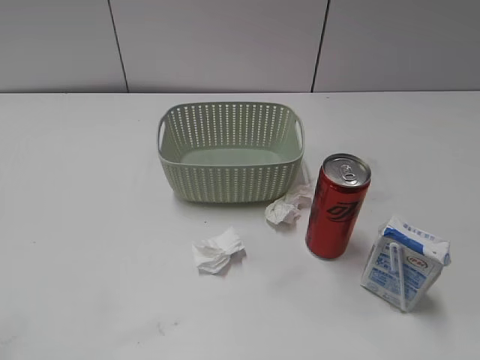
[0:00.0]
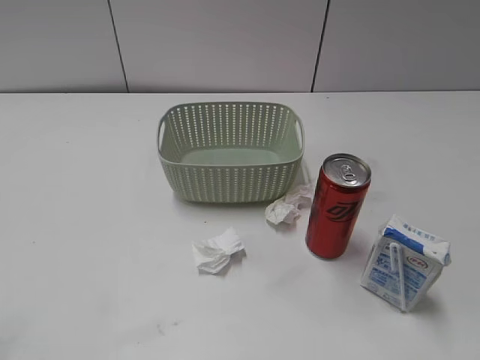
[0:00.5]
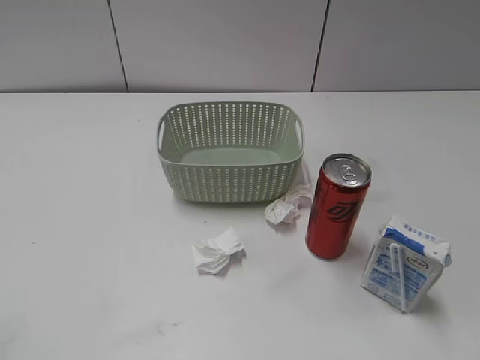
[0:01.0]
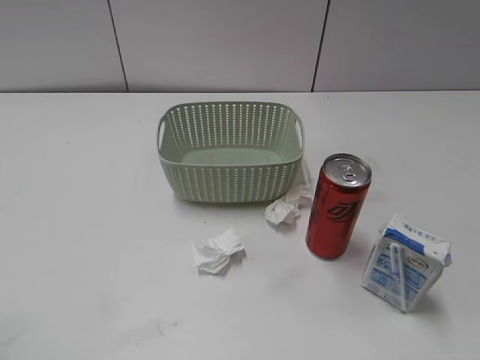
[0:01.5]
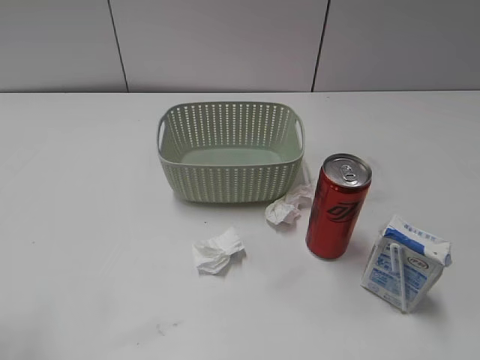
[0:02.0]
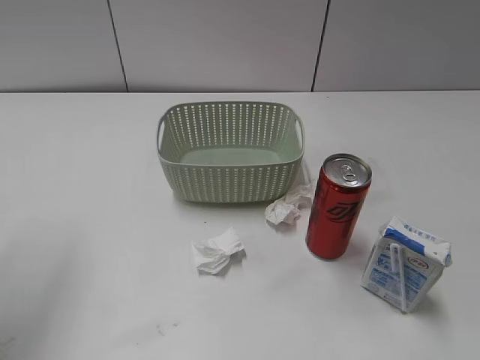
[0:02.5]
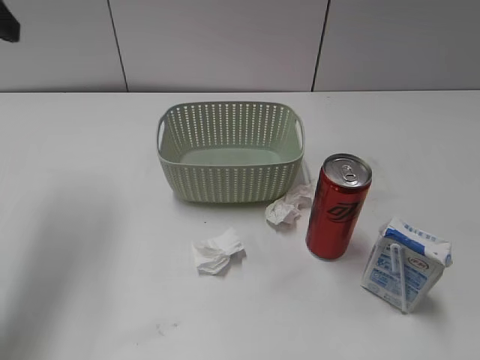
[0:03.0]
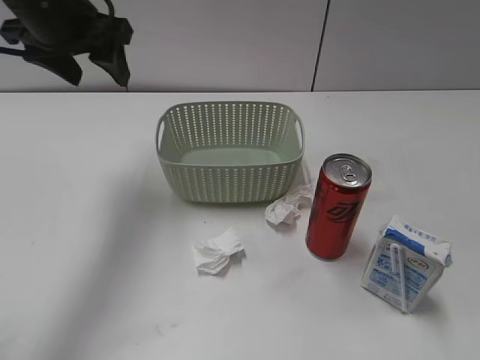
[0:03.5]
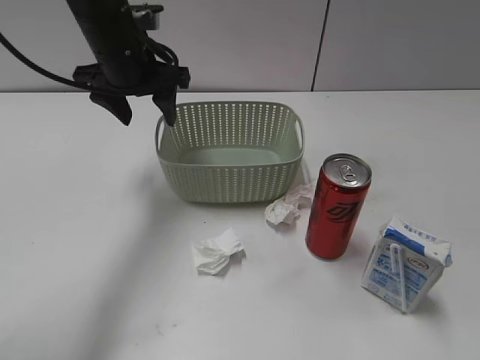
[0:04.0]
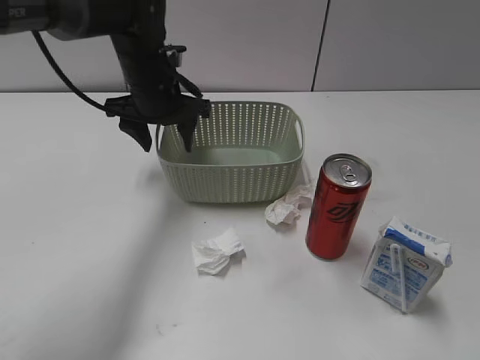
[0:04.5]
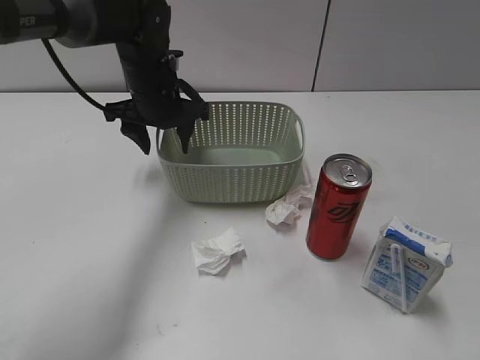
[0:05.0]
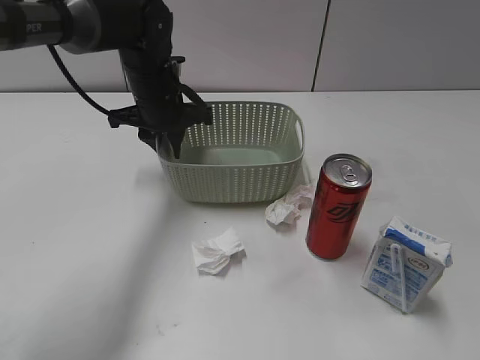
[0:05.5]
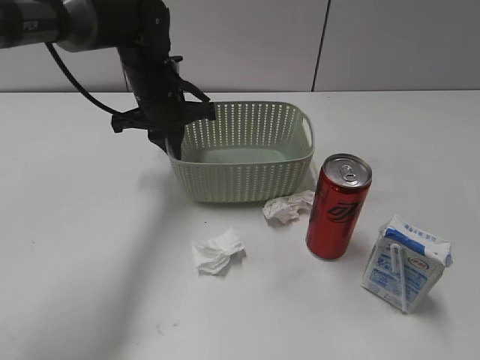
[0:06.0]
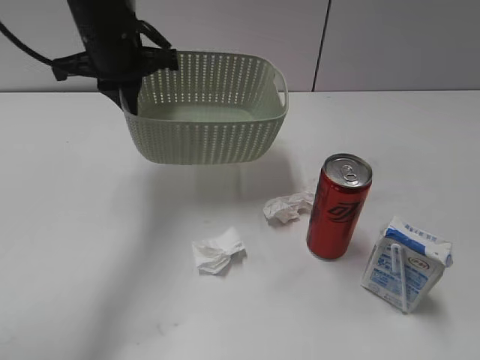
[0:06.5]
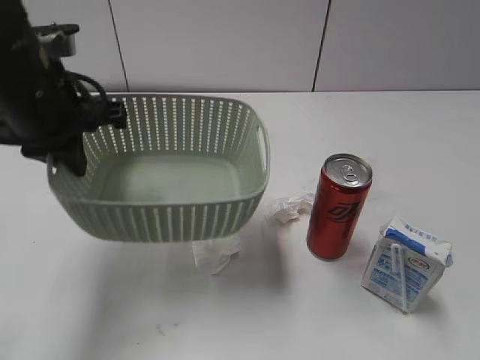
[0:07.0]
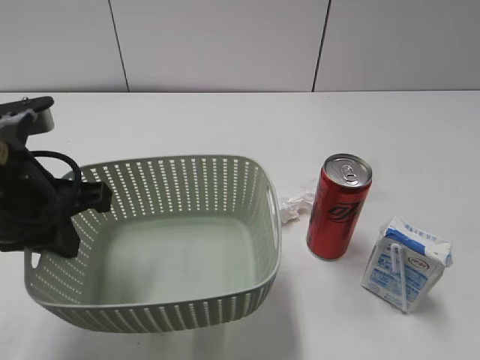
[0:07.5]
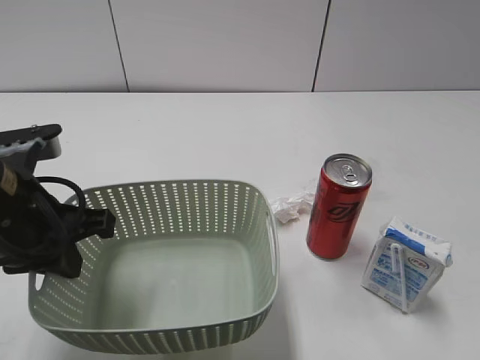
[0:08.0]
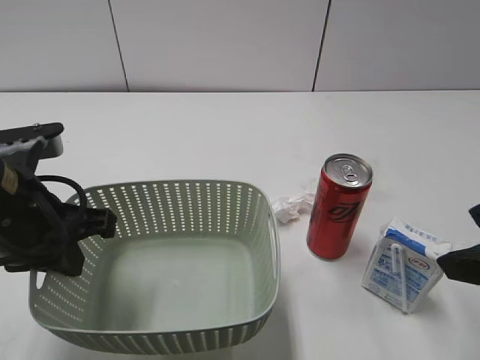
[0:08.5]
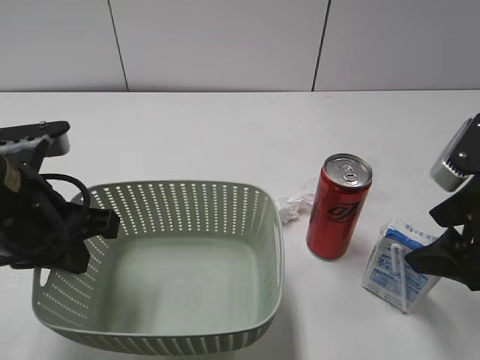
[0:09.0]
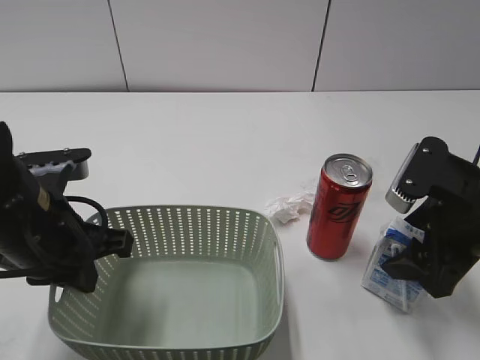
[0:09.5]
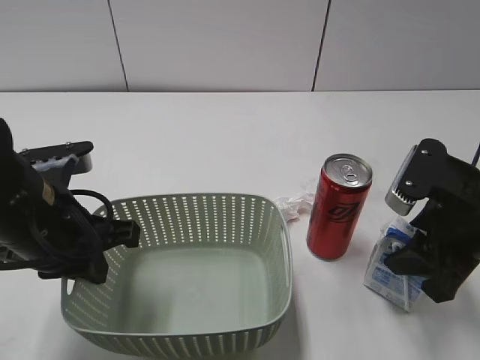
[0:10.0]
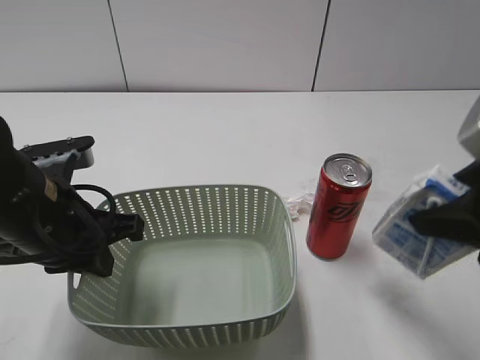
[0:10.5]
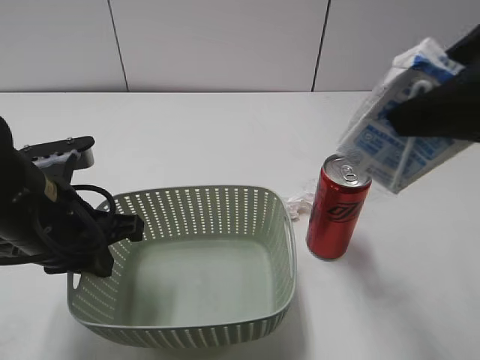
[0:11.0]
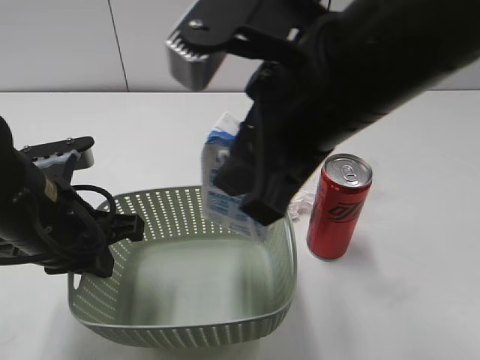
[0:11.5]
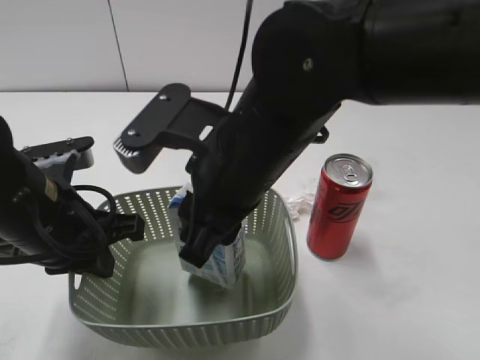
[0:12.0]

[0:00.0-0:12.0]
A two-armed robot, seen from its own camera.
Step, 0:03.0 to 0:05.5: Grasp the basket with left gripper.
Step, 0:06.0 to 0:08.0: Lift the basket with left gripper.
Step, 0:08.5 to 0:09.5: Grasp the milk with right gripper.
0:02.0 to 0:04.0: The left gripper shifts about 40 cm forward, to the right and downward.
0:04.0 to 0:06.0: The left gripper is displaced downward by about 5 cm, and closes its fingers.
0:06.0 to 0:08.0: The left gripper travels backward by roughly 25 cm. Meanwhile the right gripper is displaced forward by some 5 cm.
0:08.0 to 0:10.0: The right gripper goes roughly 20 cm forward and downward, and closes.
0:10.0 to 0:12.0: The right gripper shifts some 25 cm to the left.

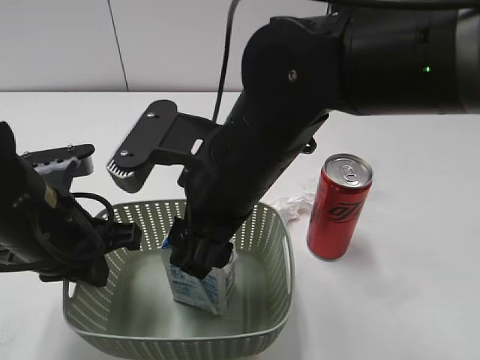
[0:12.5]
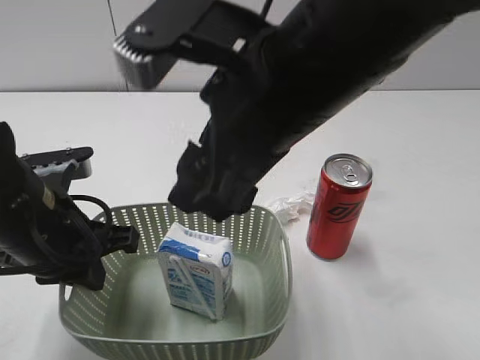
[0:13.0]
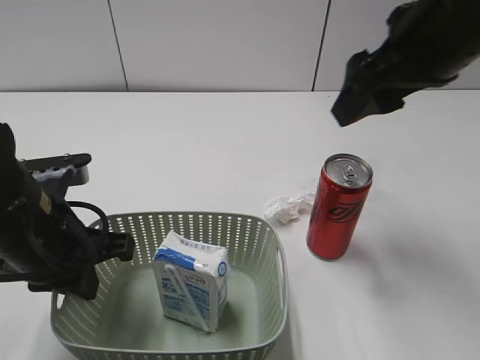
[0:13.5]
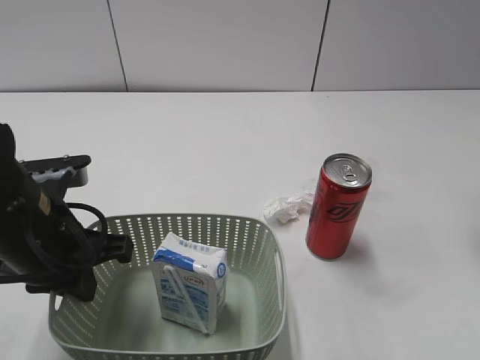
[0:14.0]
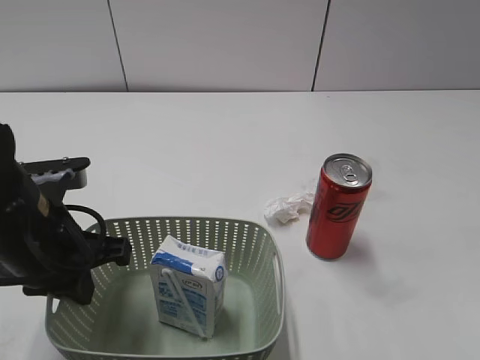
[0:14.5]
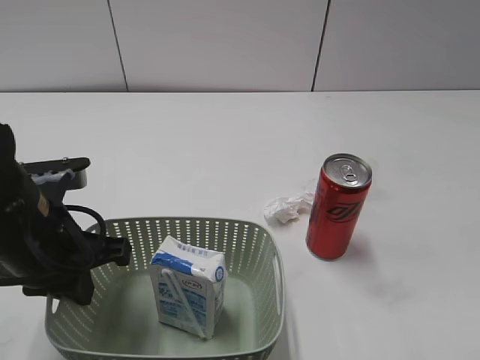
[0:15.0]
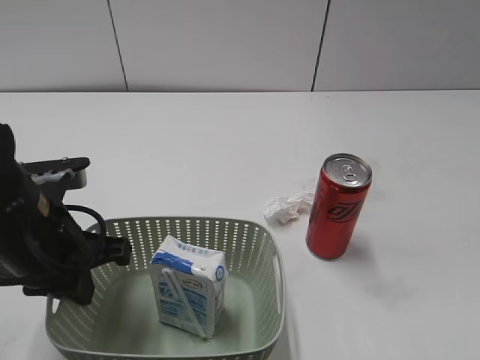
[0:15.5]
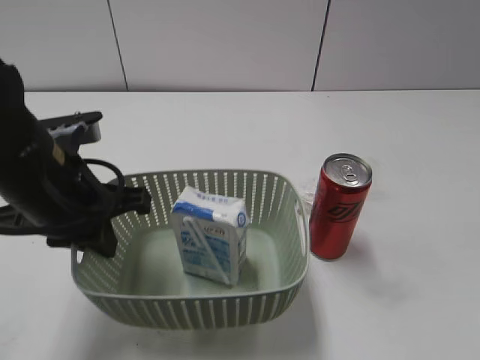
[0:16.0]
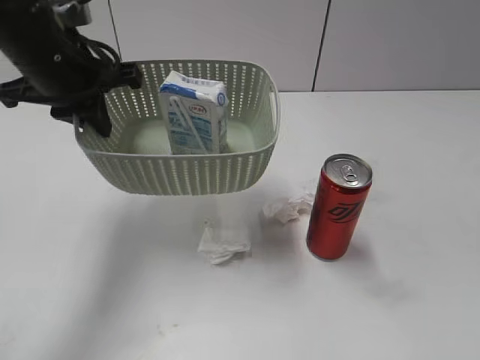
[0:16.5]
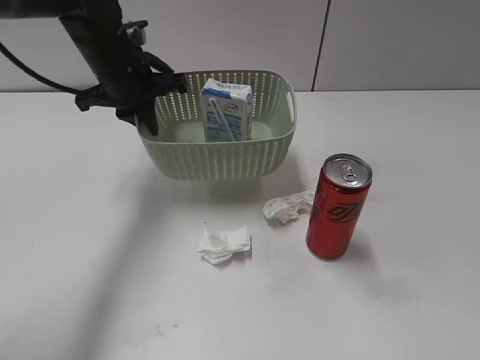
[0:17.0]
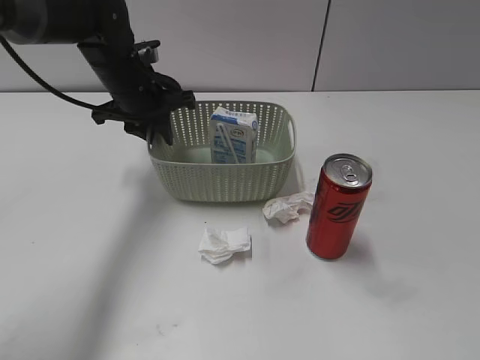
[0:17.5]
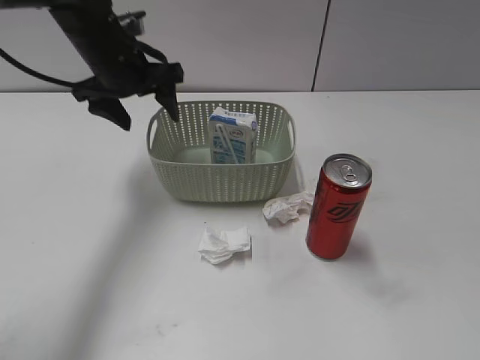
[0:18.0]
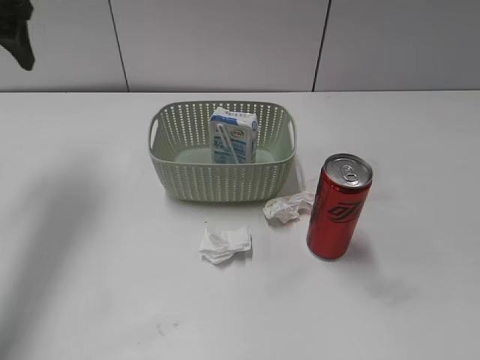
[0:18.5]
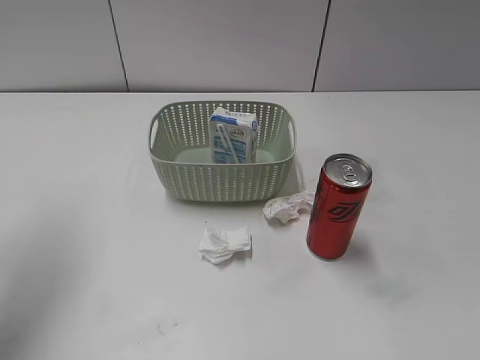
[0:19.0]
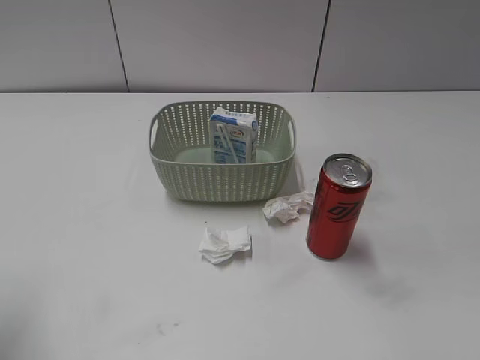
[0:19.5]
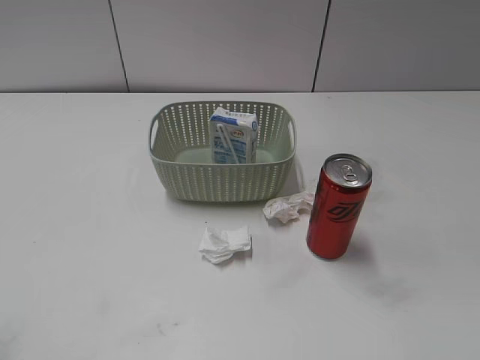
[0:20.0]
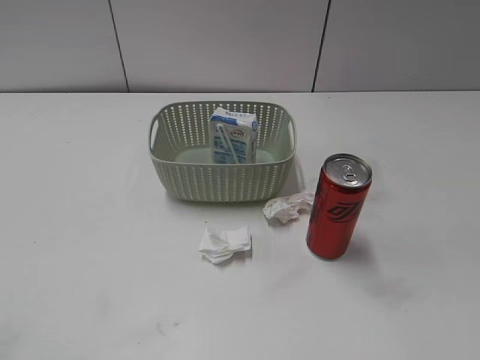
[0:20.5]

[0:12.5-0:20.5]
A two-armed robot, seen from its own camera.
Step, 0:13.0 to 0:18.0: Place the basket on the table with left gripper.
0:12.5 to 0:14.5: The right gripper moves to the right, approximately 30 cm.
0:14.5 to 0:16.5: The right gripper is displaced backward by roughly 15 cm. The left gripper moves forward and upward, approximately 15 cm.
0:16.5 to 0:18.5: The left gripper heads to the left and upward, covering roughly 15 cm, and opens up.
0:18.5 to 0:20.5: The left gripper moves backward, some 35 cm.

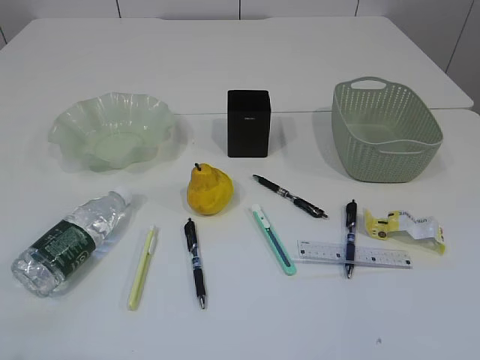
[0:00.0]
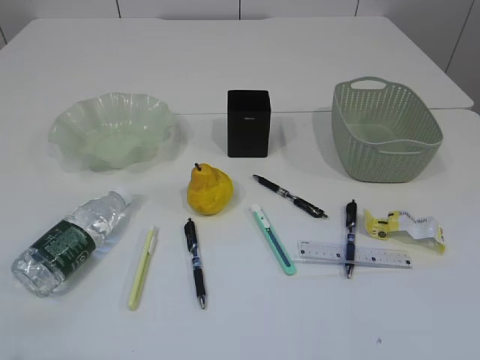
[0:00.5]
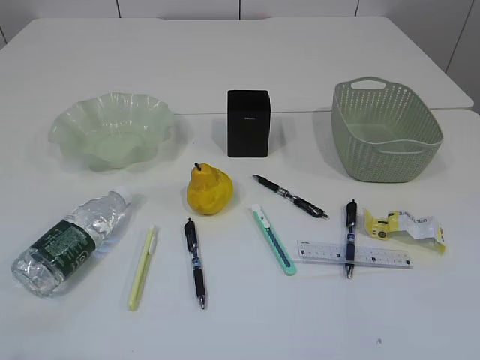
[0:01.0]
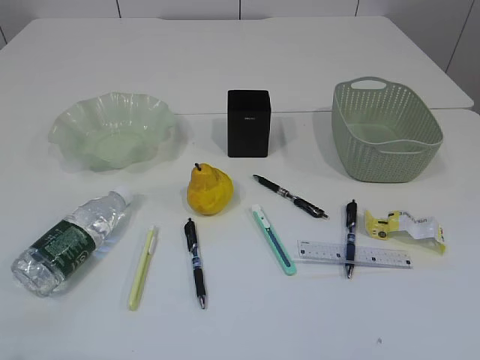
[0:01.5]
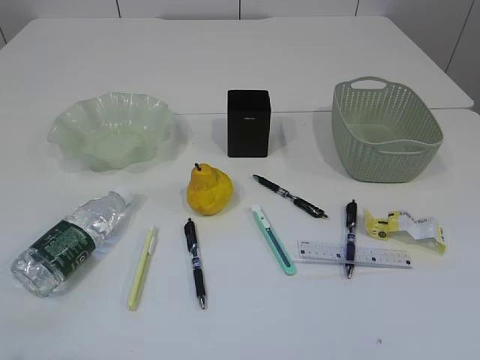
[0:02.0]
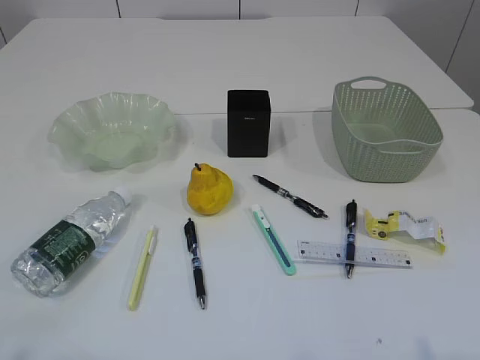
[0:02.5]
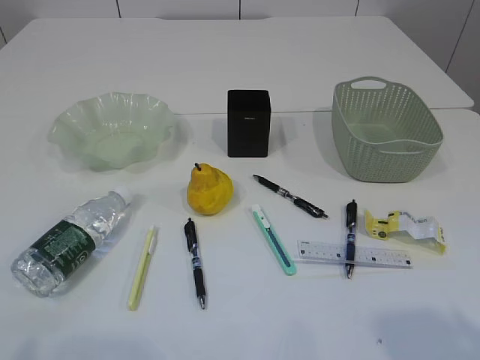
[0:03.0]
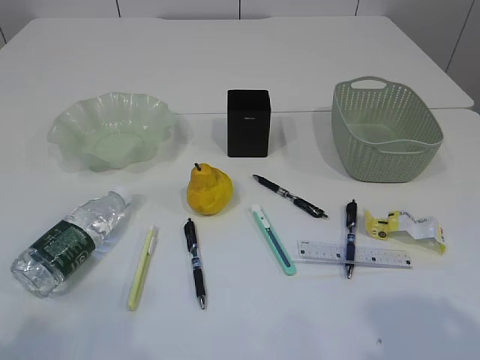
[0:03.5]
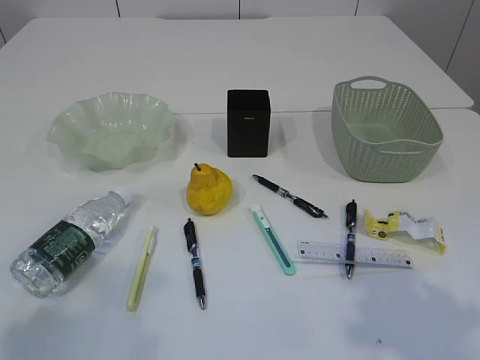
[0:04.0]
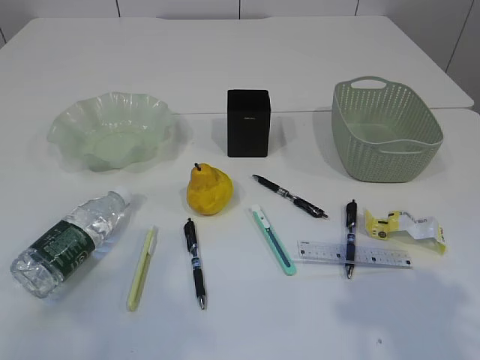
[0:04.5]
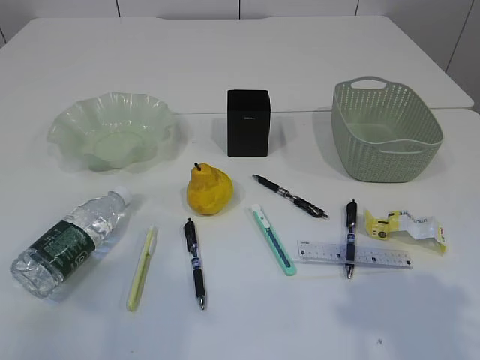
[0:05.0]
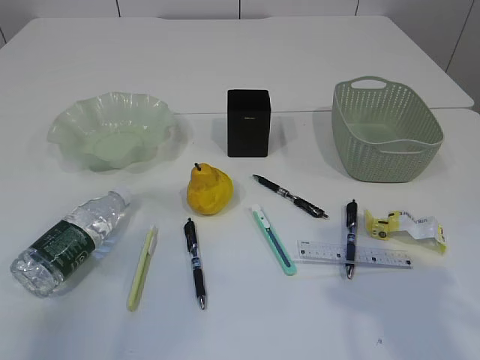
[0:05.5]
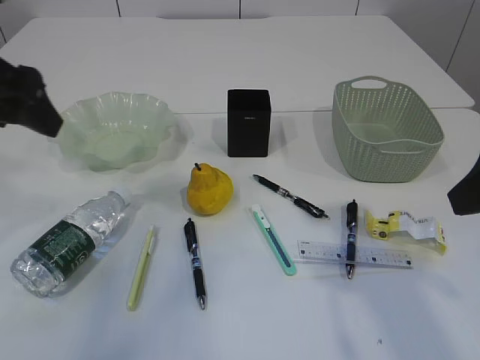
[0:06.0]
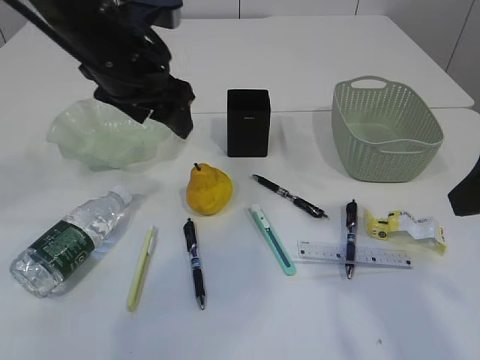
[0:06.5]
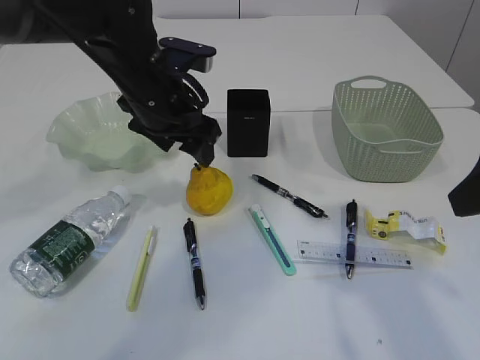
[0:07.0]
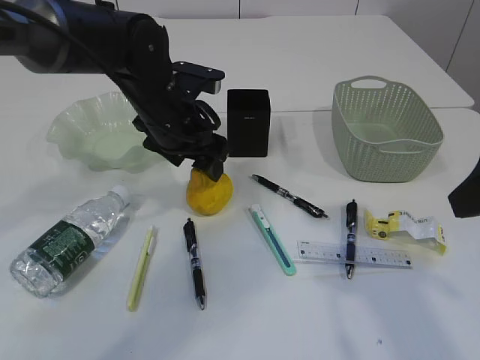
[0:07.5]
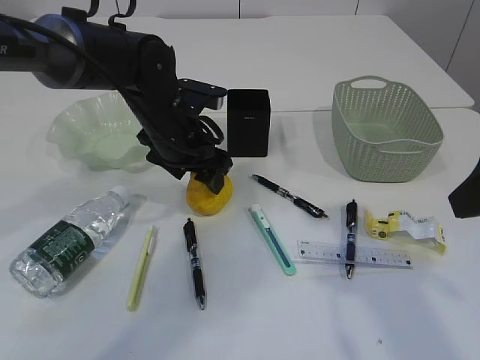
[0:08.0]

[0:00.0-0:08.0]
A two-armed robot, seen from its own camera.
0:02.0 to 0:04.0: Both grippers travel together forward, some 10 cm.
0:04.0 to 0:06.0: The left gripper travels forward by some 20 cm, while the right gripper shifts approximately 10 cm forward.
0:06.0 to 0:08.0: The left gripper moves to the right, downward and forward, about 25 cm.
